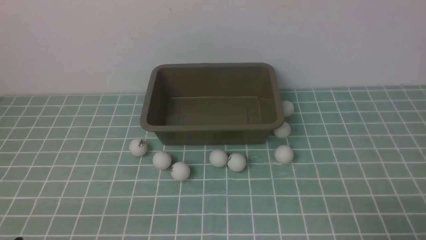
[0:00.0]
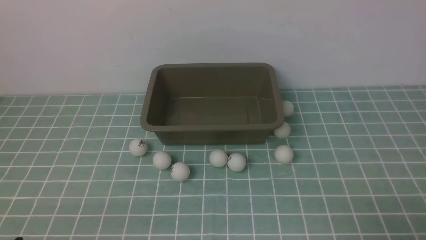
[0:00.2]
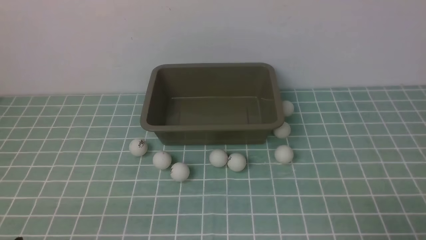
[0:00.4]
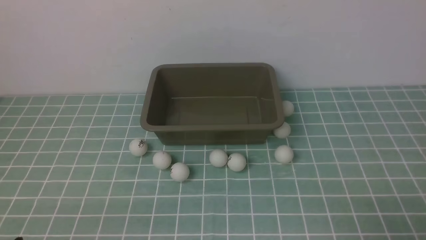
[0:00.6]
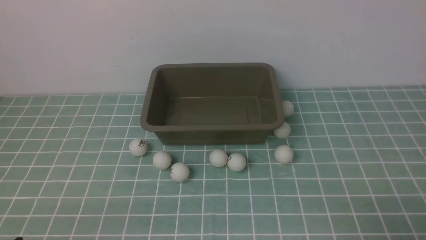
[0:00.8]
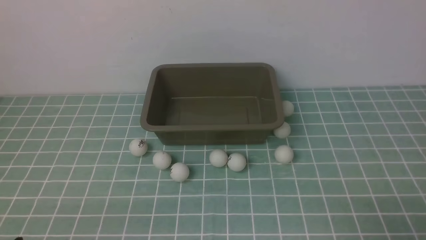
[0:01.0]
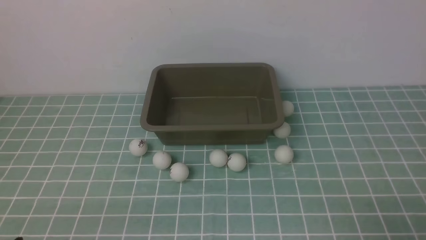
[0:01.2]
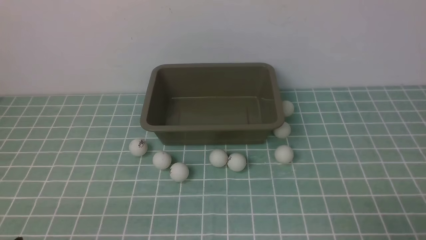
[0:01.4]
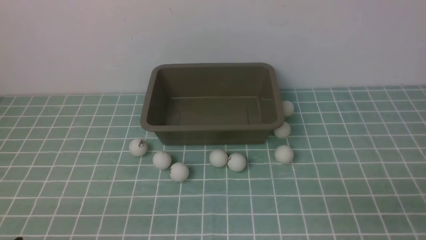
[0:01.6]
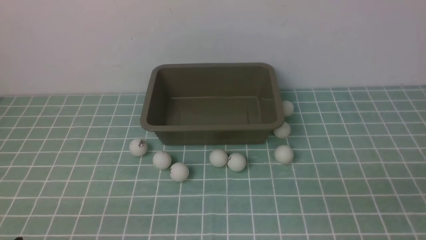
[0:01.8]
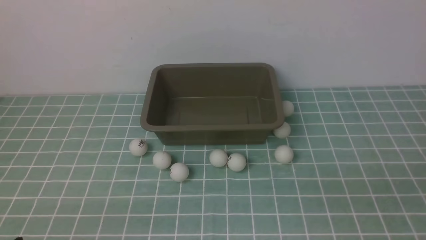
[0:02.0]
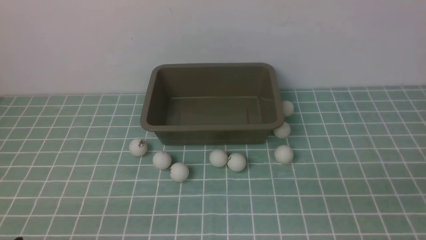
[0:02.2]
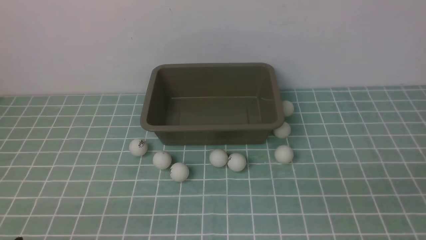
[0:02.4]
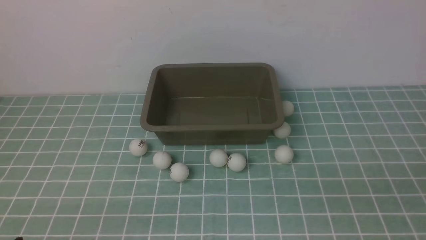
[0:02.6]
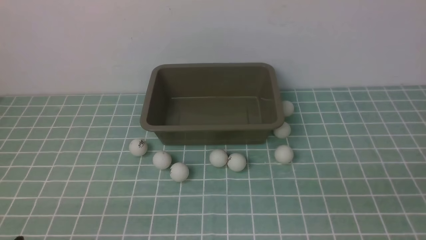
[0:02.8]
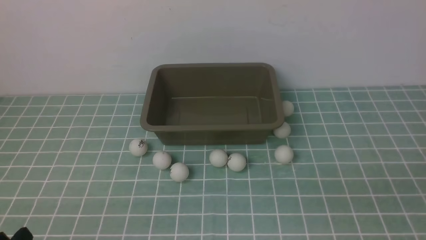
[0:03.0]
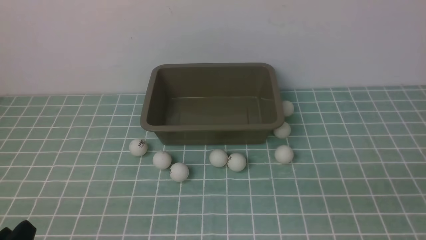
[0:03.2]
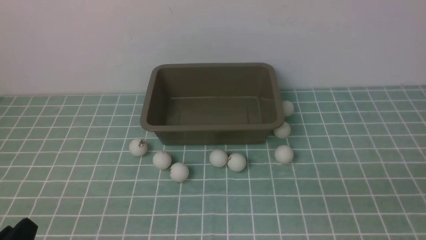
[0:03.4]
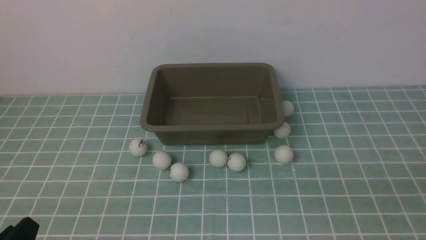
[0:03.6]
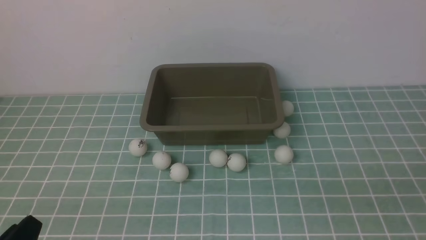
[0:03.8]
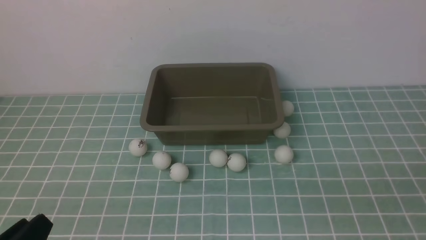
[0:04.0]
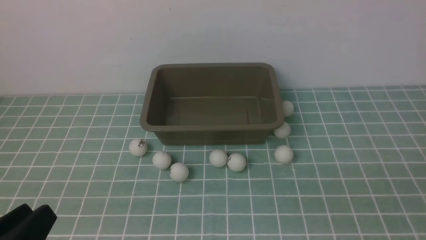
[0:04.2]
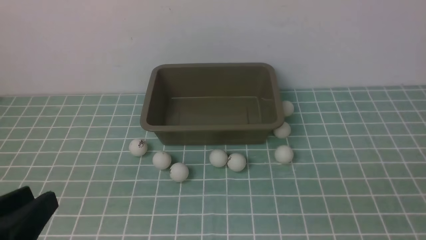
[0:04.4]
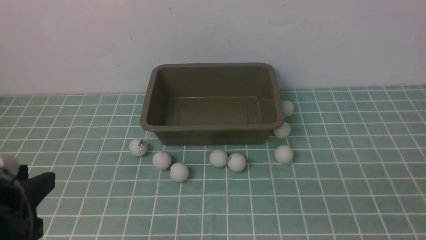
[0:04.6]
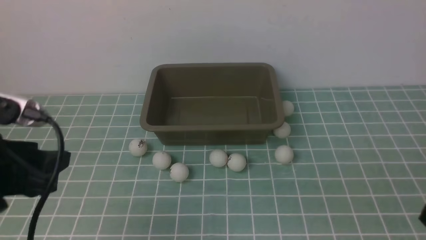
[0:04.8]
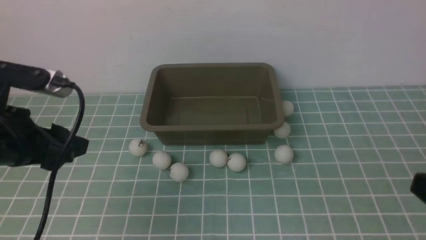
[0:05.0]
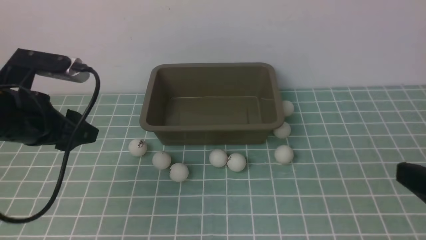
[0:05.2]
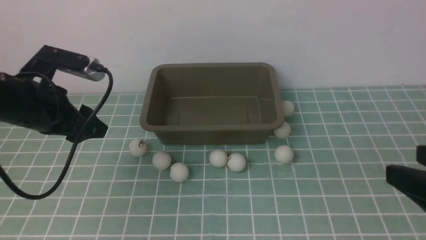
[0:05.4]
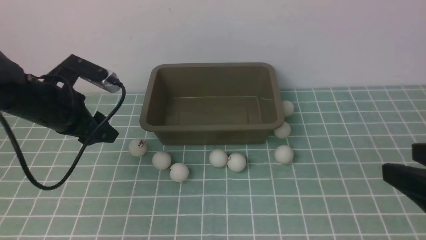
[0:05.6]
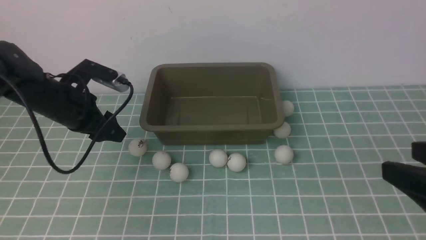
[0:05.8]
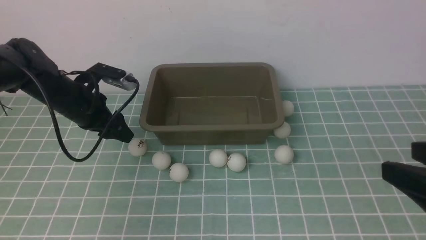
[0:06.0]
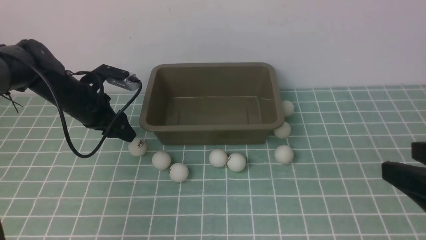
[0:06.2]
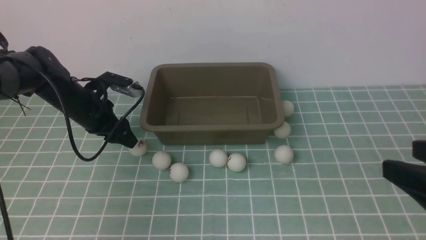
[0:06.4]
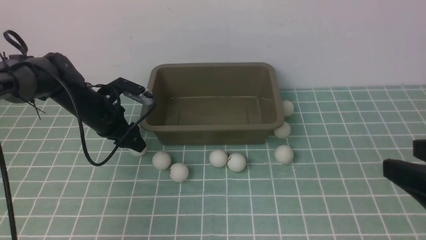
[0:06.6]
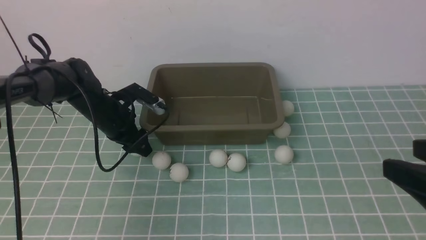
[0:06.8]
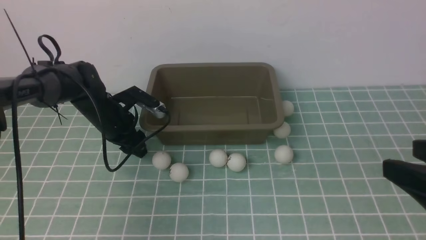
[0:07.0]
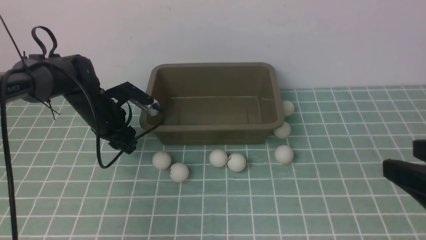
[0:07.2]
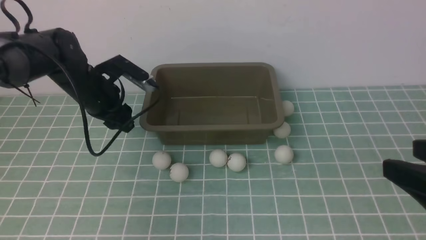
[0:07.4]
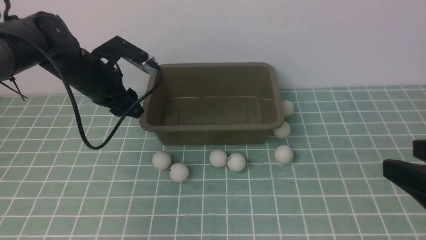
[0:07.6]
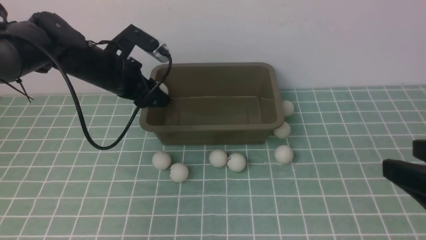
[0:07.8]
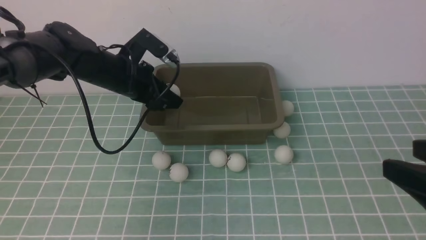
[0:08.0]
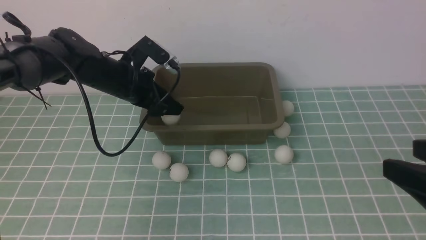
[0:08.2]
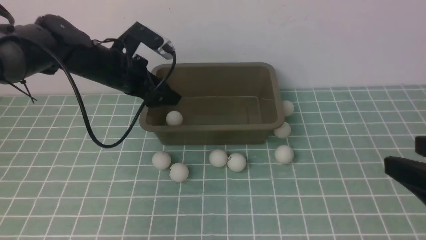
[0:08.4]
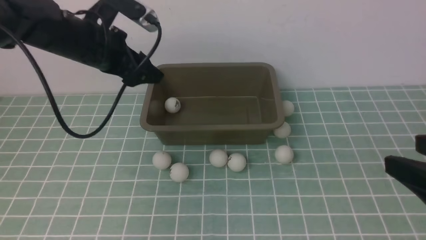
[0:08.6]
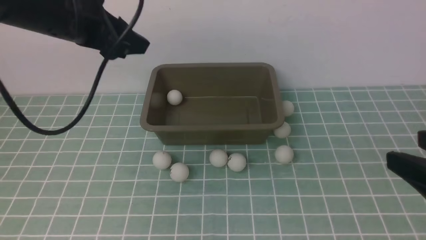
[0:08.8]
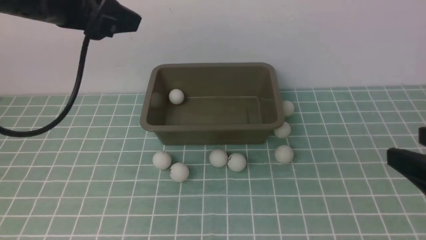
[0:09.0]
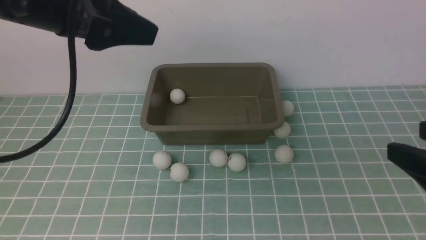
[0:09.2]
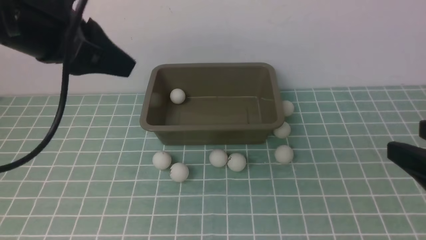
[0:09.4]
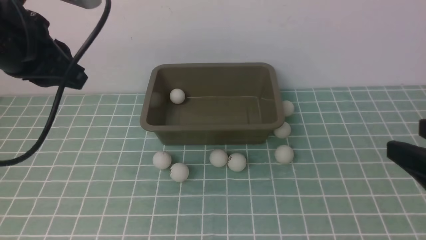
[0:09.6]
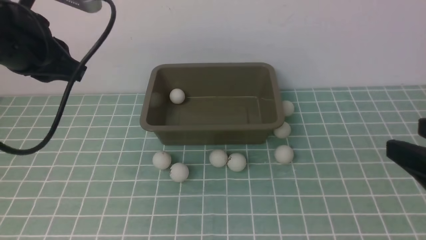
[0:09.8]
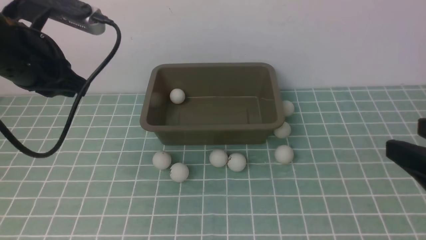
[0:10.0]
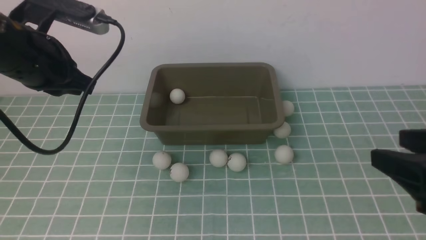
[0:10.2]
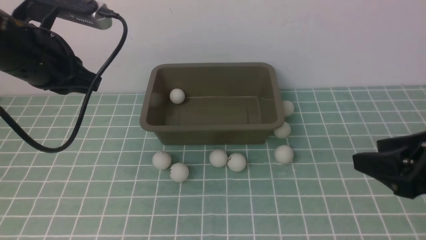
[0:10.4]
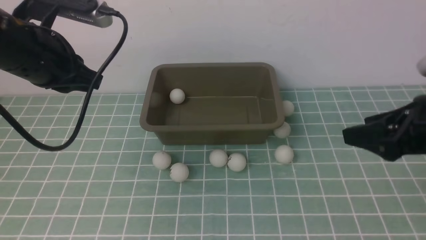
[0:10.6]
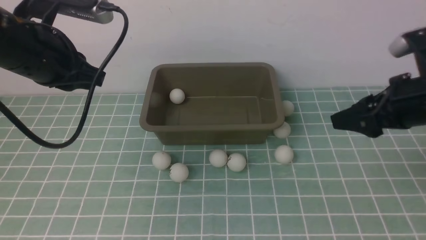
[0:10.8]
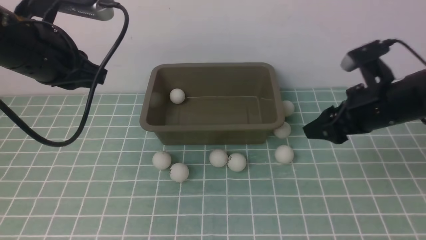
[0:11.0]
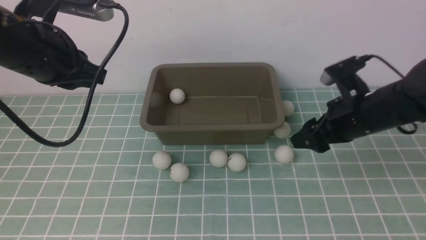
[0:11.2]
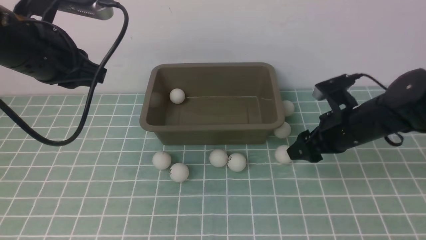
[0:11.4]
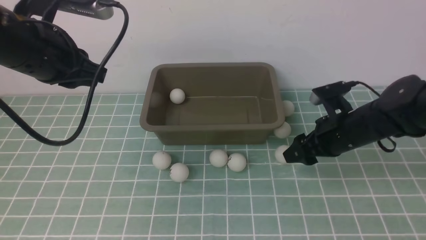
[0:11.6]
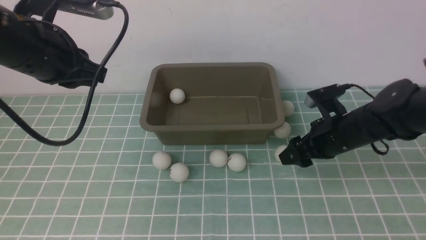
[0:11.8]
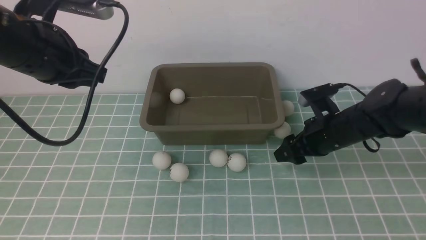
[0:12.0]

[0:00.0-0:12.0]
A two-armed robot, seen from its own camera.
Step, 0:00.0 to 0:07.4: use the left arm to clamp the table tennis ball closest to it.
Step, 0:07.6 to 0:08.4: use the left arm to put the table tennis ball into the box.
0:03.0 to 0:04.4: The left gripper shifts roughly 10 cm upward.
0:04.4 to 0:06.0: The right gripper moves forward, some 10 cm, while the left gripper shifts roughly 35 cm forward.
0:06.0 to 0:07.6: The left gripper travels to the right by roughly 5 cm.
0:07.6 to 0:09.0: The left gripper moves upward and backward, approximately 20 cm.
0:09.0 to 0:10.4: The right gripper travels forward by roughly 5 cm. Meanwhile the left gripper shifts roughly 5 cm downward, and closes its fingers.
0:10.4 to 0:12.0: The right gripper travels forward and downward by roughly 25 cm.

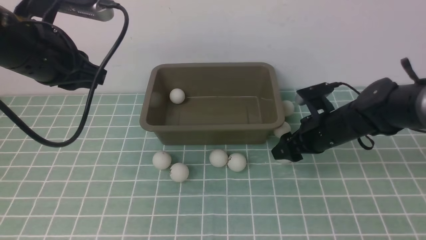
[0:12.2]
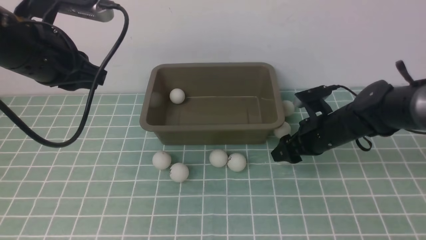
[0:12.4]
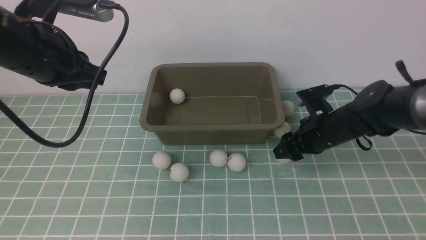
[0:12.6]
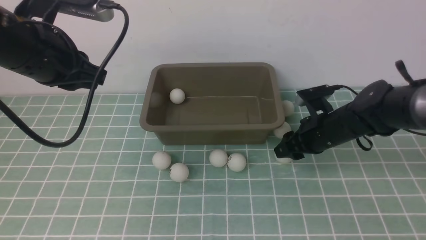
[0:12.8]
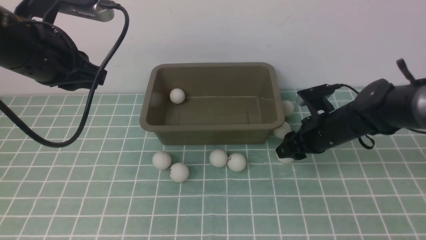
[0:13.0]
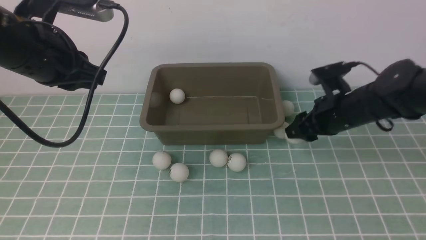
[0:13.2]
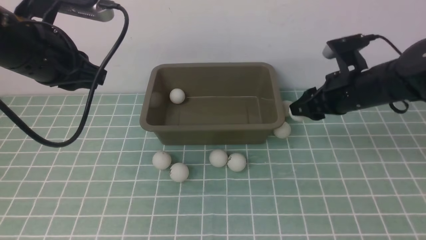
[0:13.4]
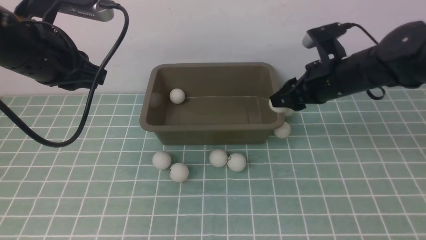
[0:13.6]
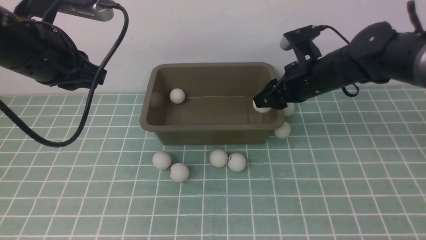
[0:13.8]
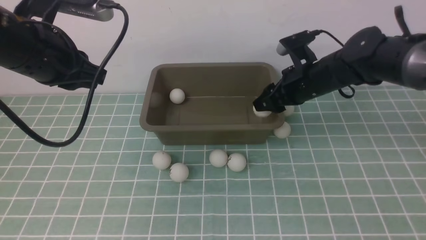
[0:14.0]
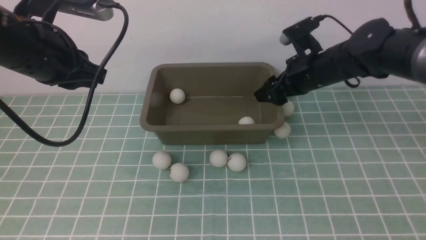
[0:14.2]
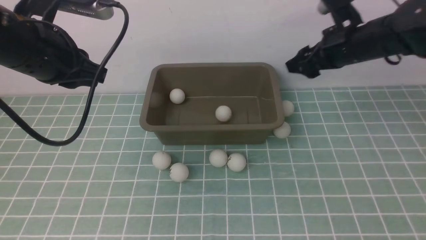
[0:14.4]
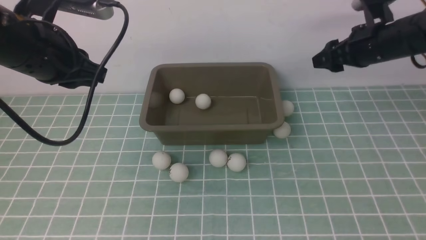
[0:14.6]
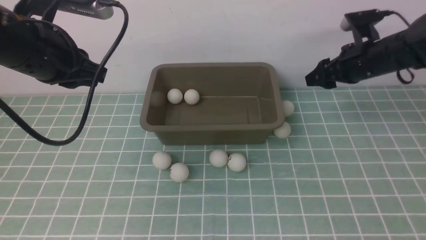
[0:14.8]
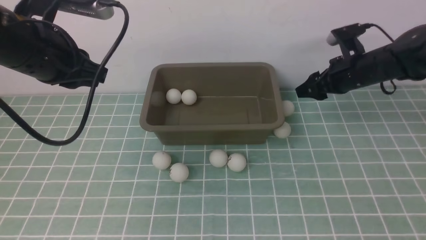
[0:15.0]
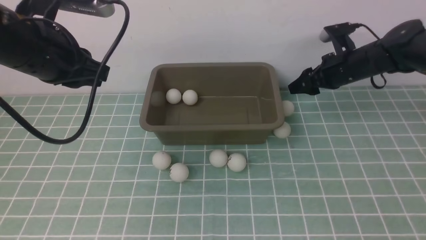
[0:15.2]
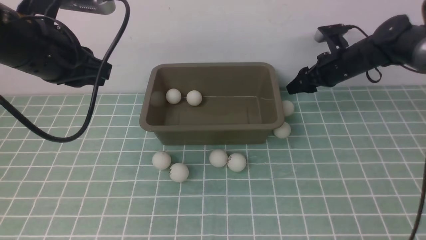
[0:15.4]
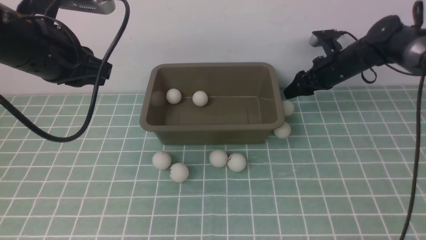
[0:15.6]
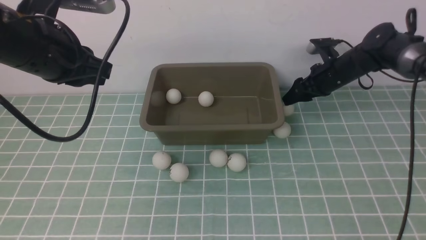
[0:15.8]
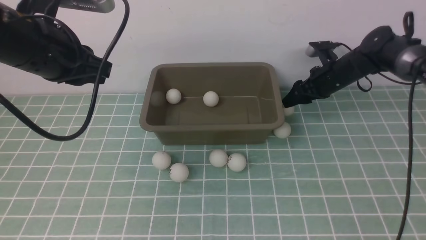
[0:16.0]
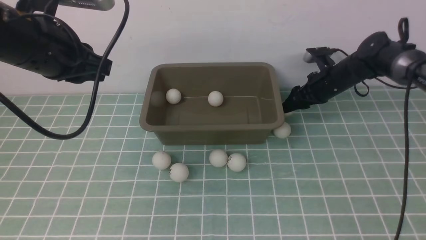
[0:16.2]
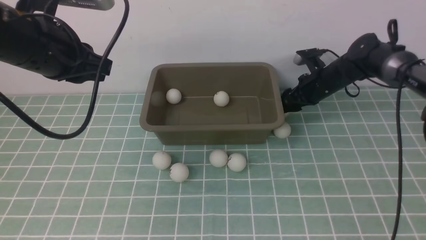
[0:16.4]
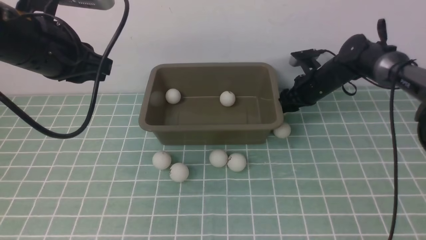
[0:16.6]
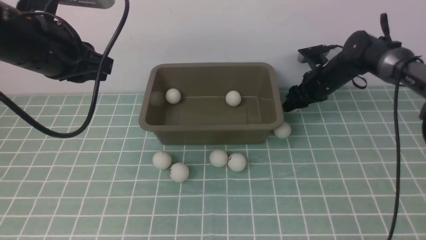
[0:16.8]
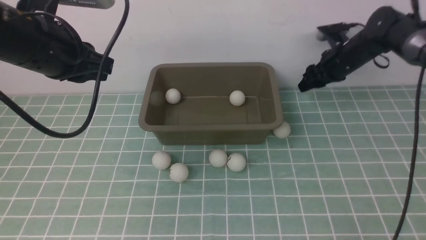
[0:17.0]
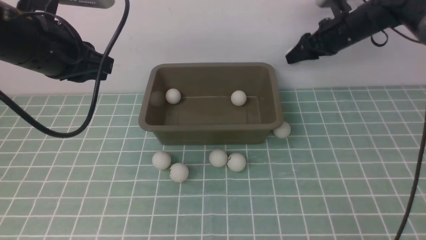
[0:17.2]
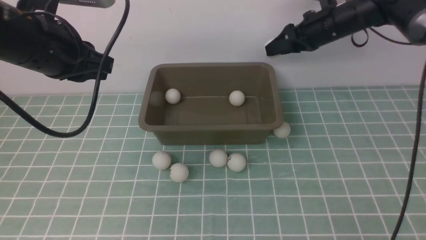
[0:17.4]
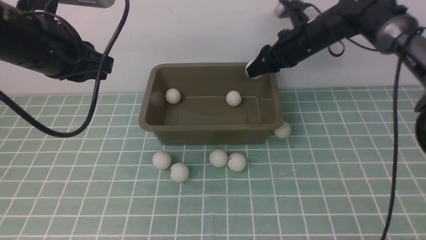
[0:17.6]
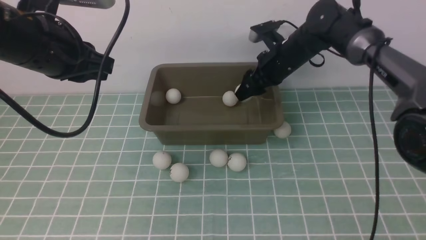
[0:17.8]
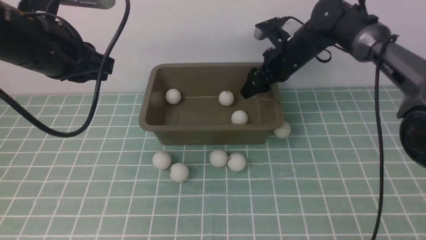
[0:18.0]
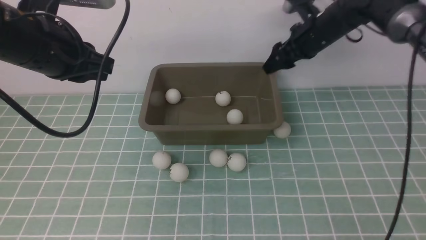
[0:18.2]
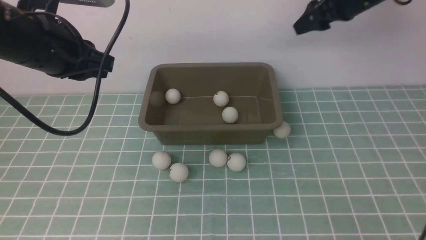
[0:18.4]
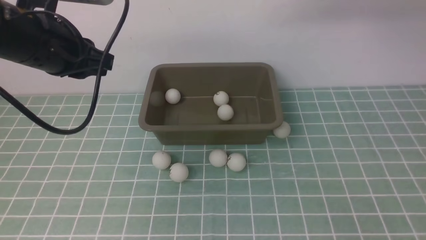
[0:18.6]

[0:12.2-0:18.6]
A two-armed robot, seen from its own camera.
Step, 0:13.4 to 0:14.2: use the right arm to put the table tennis ball into the box.
Step, 0:14.4 to 0:16.8: use the right arm to clamp the table tennis ball closest to it.
Step, 0:17.0 to 0:18.0: use the right arm to put the table tennis ball into the box.
0:12.2 to 0:13.8: The right gripper goes about 10 cm upward, and closes its fingers.
0:13.8 to 0:15.4: The right gripper shifts some 15 cm forward, to the right and downward, and opens up.
0:15.4 to 0:17.0: The right gripper closes.
0:17.0 to 0:18.6: The right gripper heads upward, covering some 20 cm, and opens up.
